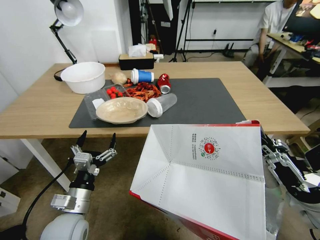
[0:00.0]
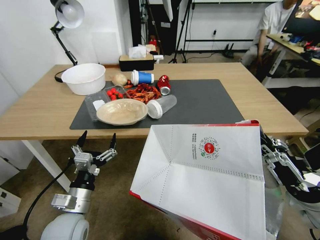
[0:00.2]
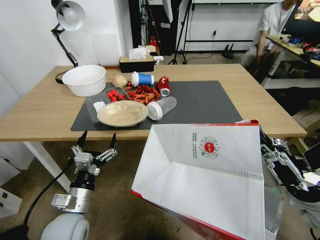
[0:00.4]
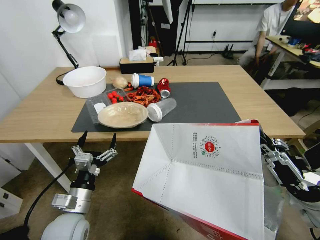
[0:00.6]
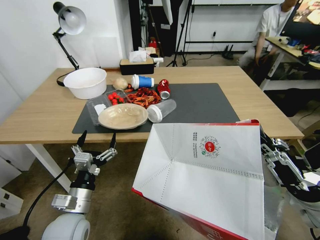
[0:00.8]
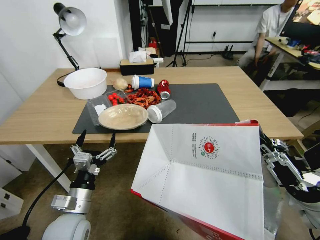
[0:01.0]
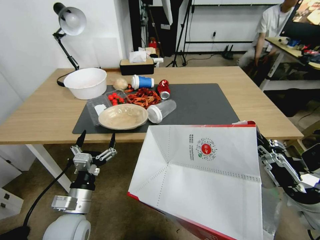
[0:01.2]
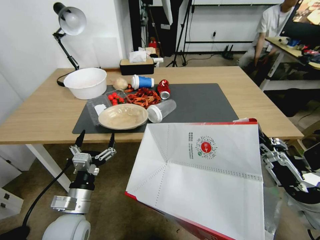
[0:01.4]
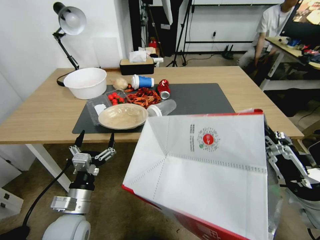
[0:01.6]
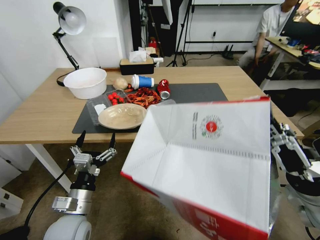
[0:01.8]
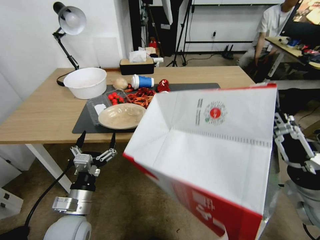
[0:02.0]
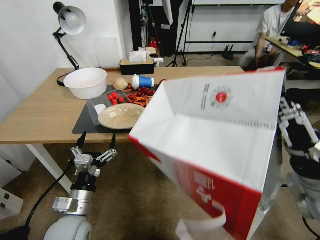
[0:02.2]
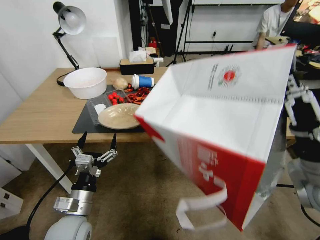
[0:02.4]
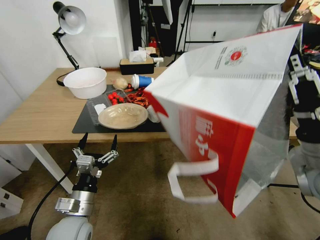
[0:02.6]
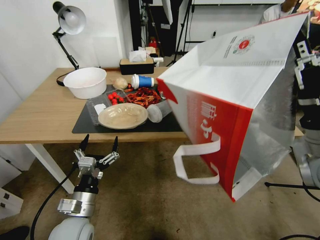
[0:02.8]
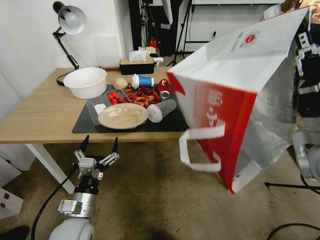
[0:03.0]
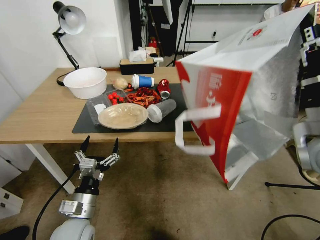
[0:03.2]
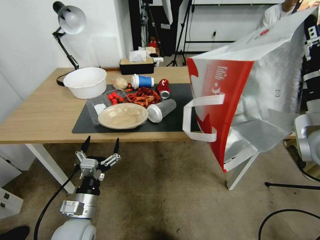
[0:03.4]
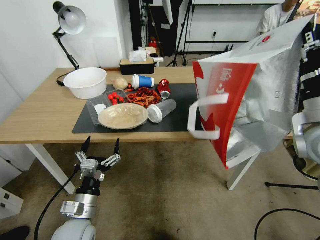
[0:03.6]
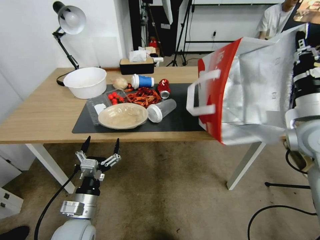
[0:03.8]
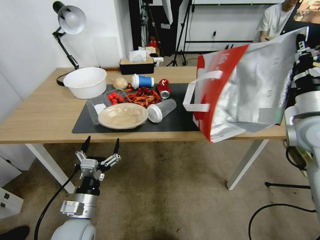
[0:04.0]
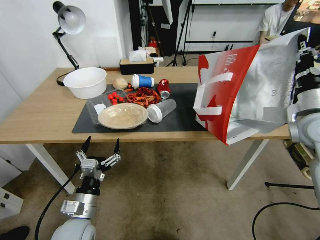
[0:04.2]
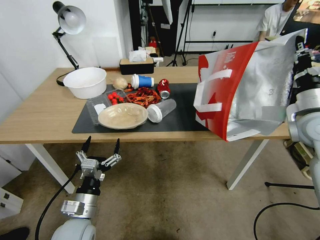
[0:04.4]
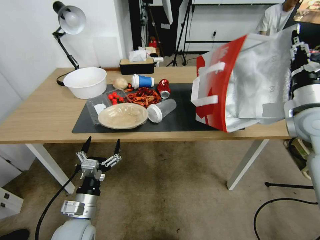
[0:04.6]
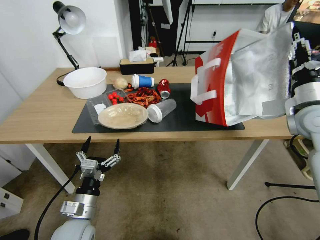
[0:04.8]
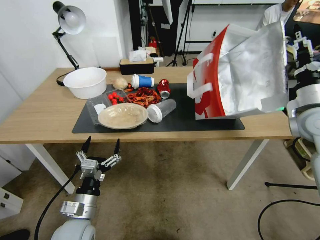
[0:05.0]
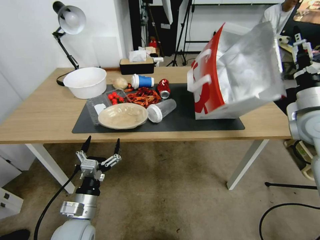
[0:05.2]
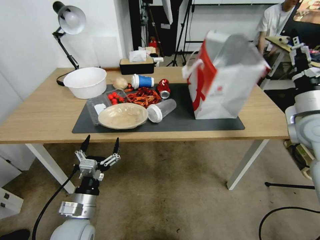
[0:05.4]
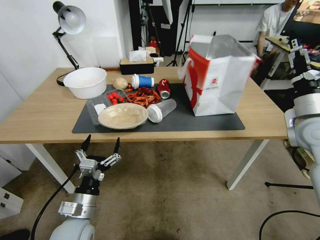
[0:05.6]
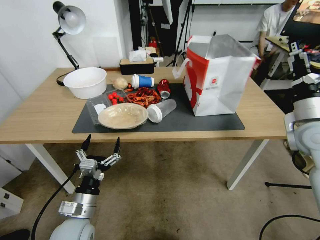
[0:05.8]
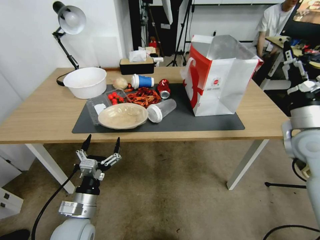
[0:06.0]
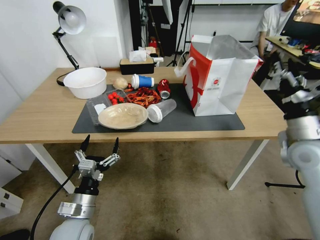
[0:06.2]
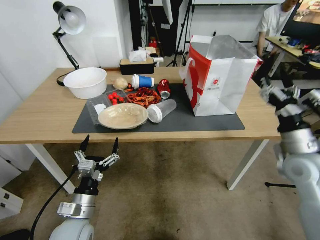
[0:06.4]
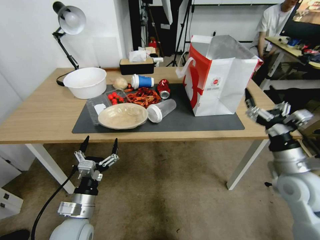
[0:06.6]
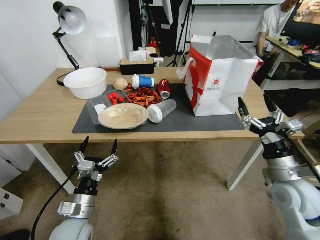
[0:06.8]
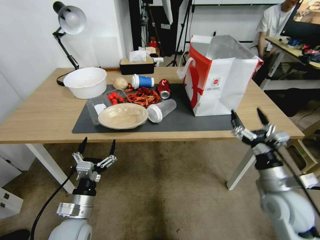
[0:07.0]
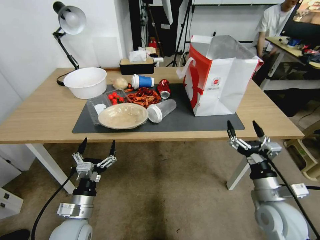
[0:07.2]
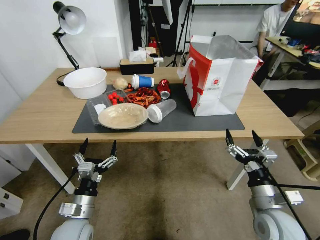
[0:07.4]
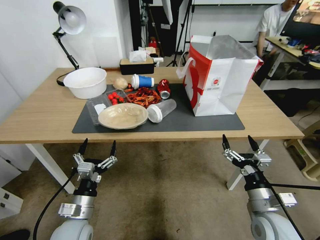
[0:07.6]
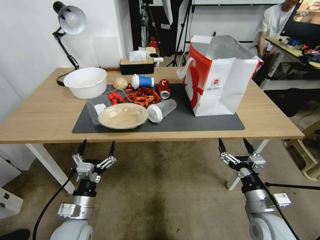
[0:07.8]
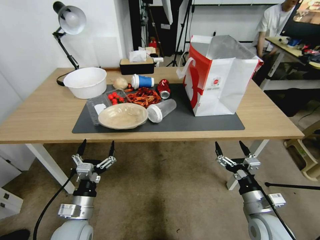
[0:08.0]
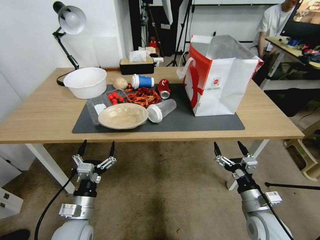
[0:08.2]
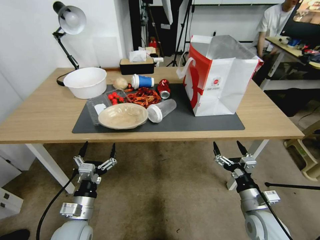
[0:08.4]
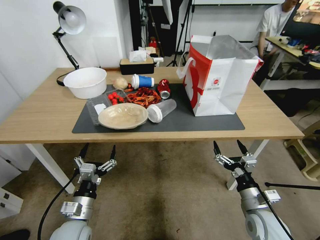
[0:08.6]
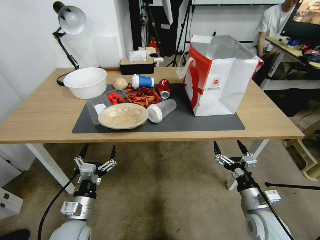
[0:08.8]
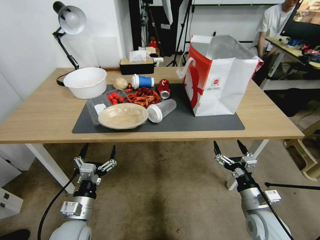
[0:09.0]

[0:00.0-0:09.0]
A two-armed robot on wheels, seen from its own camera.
Task of the whole recording: Pick up the food delivery bag from the floor and place it on the table.
0:01.6 to 0:03.0: The right gripper moves upward and forward, approximately 10 cm.
0:03.0 to 0:04.4: The right gripper moves forward and to the right, about 10 cm.
0:04.4 to 0:06.0: The right gripper opens its fingers.
0:06.0 to 0:07.6: The right gripper moves downward, backward and to the left, about 25 cm.
0:07.6 to 0:09.0: There are only small adjustments of the grippers.
